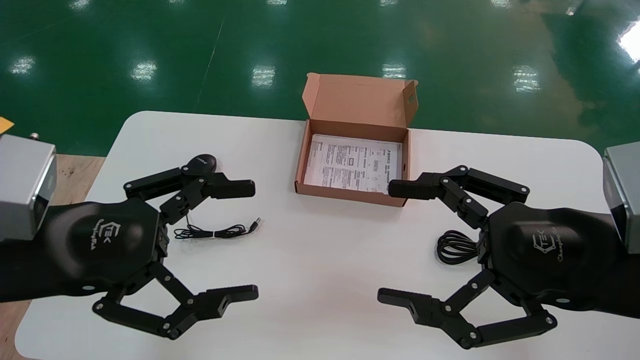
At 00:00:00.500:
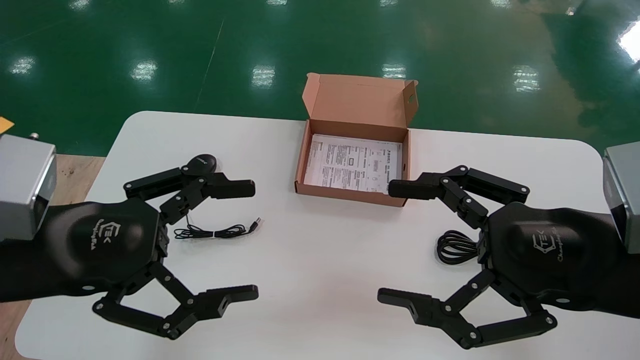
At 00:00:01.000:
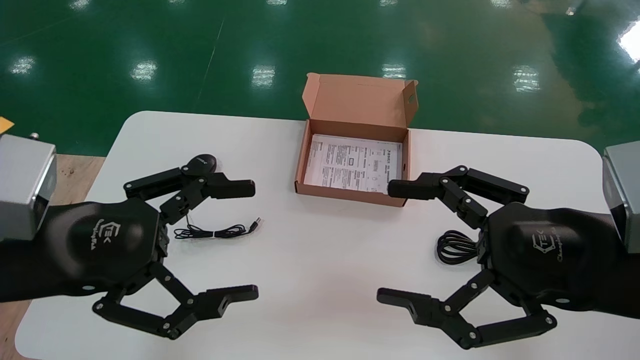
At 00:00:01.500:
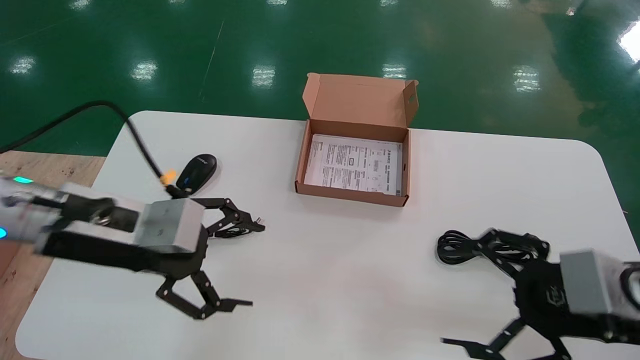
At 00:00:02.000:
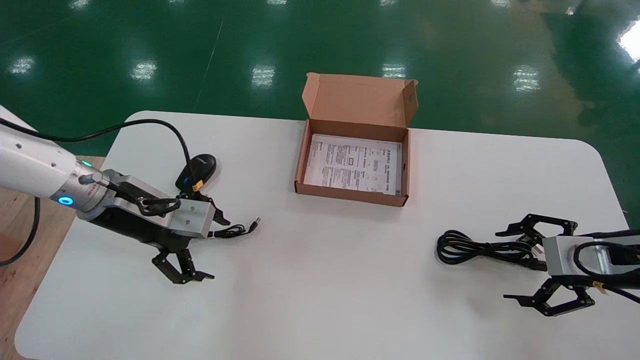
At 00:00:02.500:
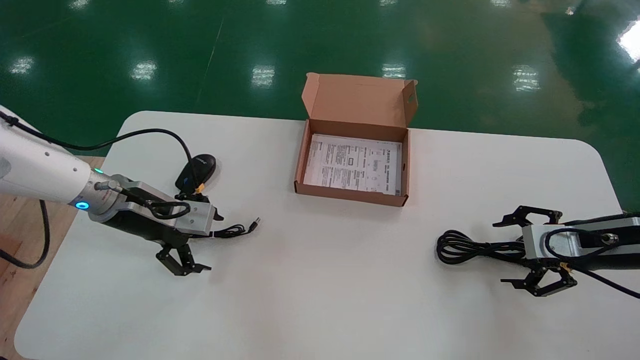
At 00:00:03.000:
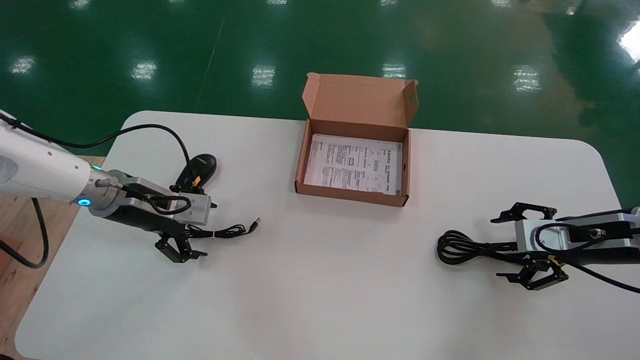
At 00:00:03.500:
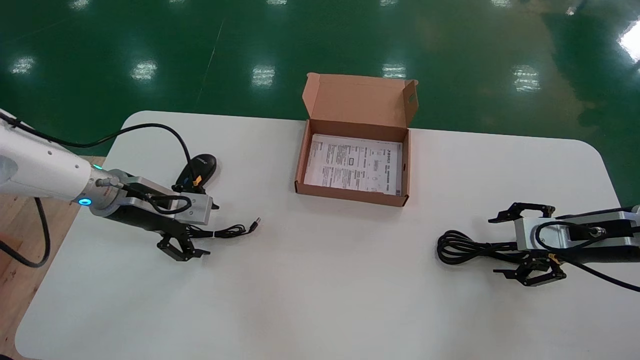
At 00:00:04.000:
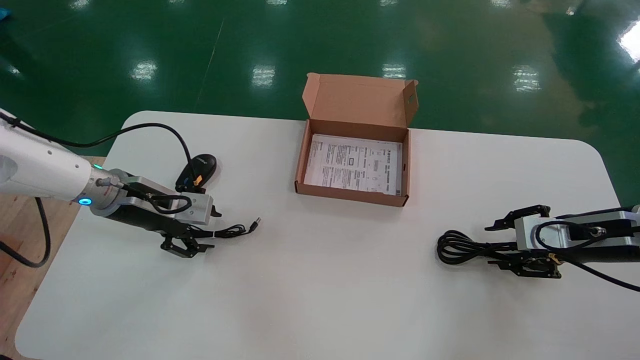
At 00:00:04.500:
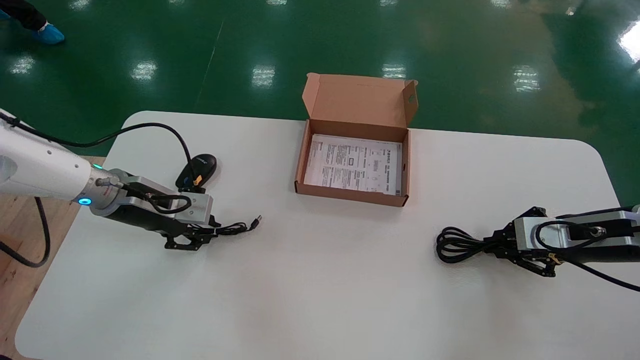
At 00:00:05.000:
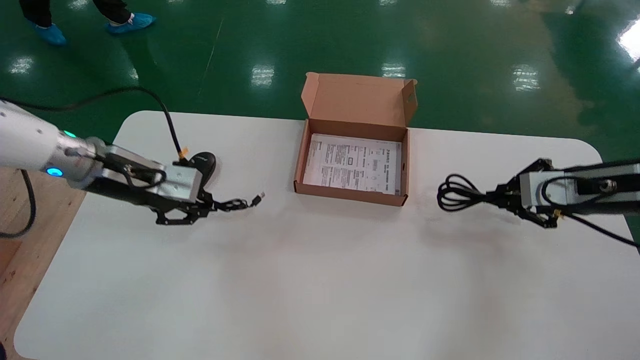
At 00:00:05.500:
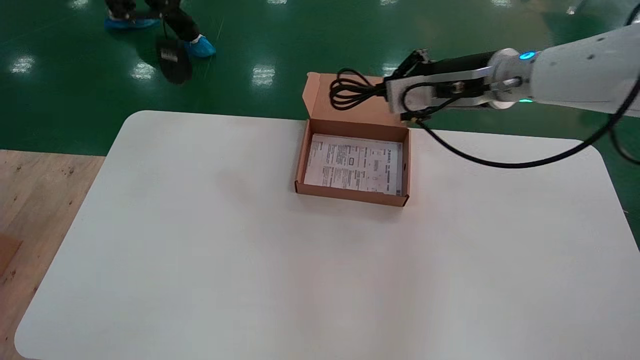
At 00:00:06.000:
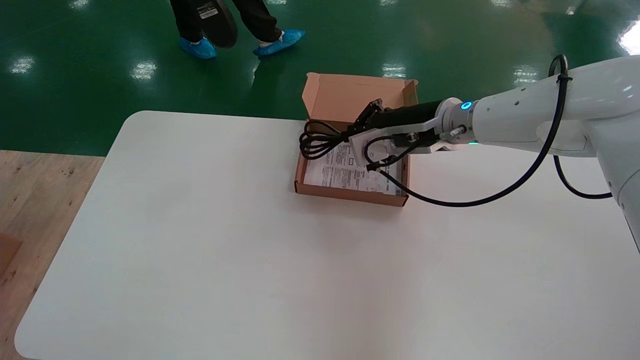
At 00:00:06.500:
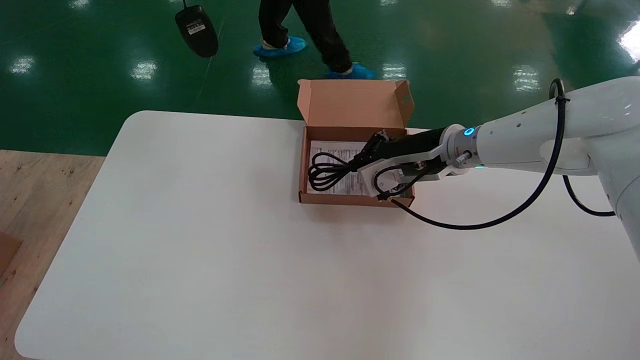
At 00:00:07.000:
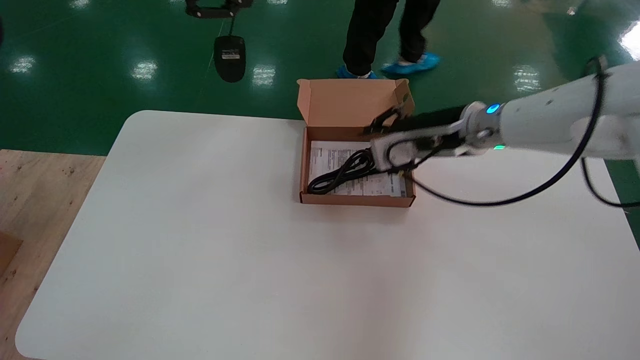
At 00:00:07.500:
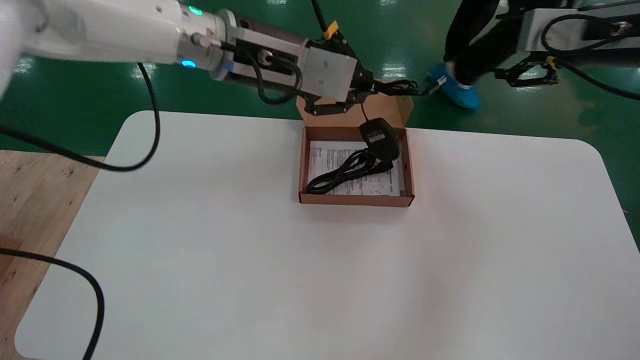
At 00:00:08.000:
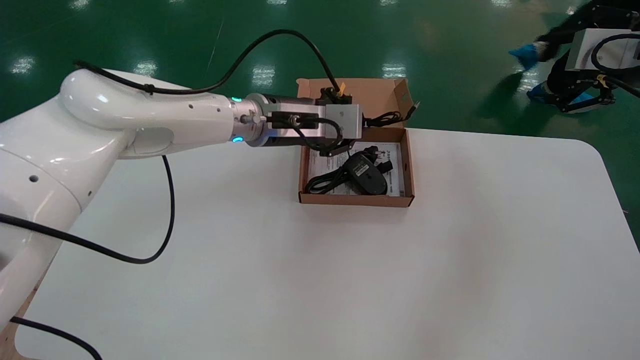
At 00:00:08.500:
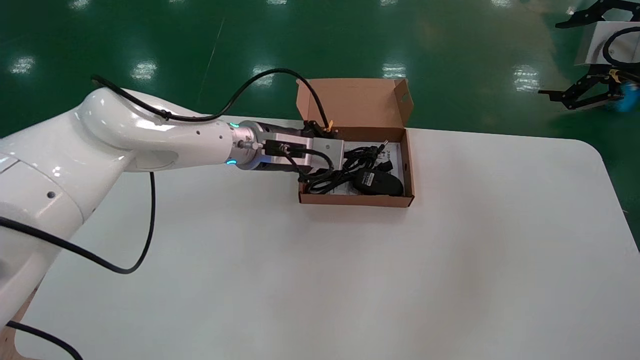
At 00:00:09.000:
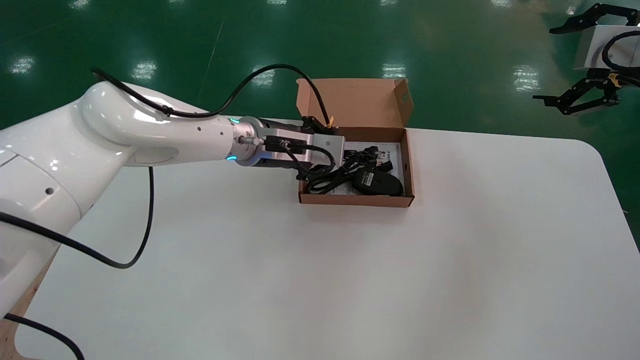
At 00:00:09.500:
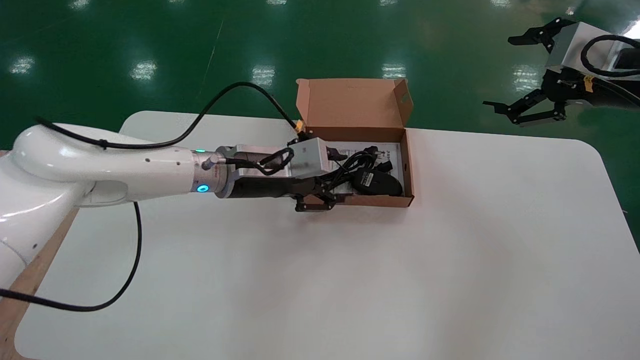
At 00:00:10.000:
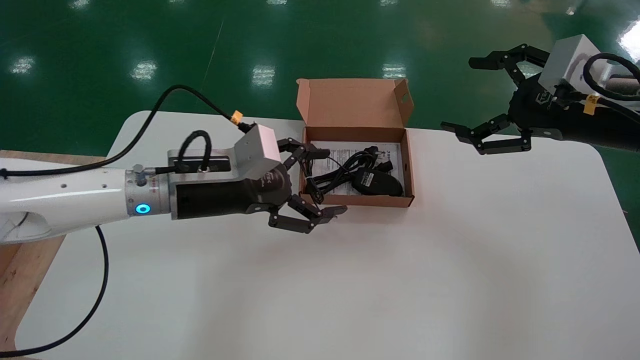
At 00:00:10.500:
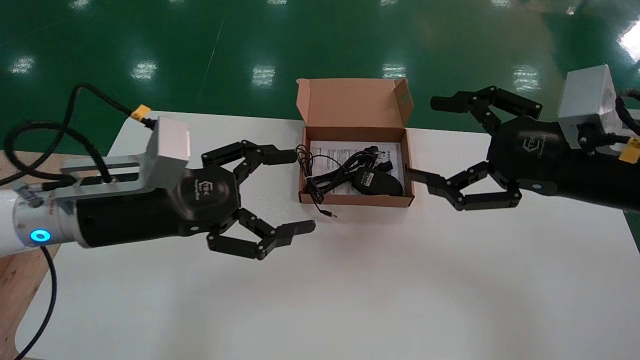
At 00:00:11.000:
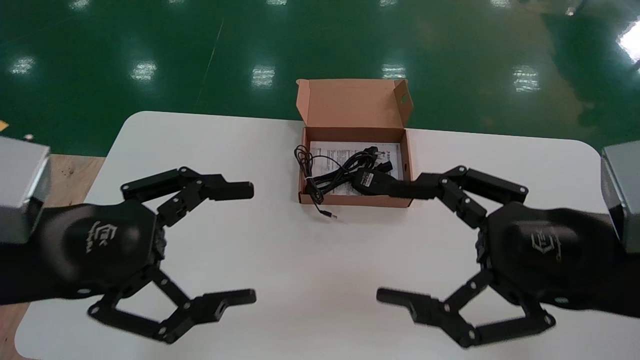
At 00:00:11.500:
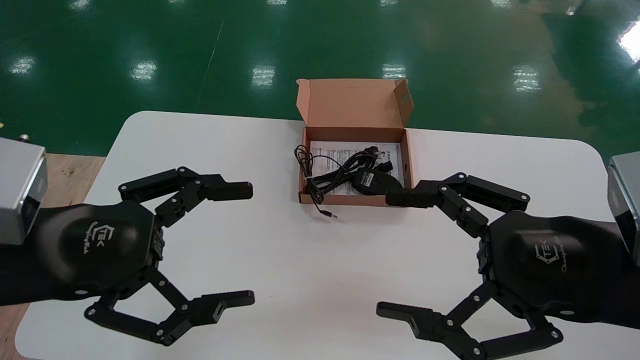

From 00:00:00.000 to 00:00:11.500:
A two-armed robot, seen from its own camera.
Step, from 00:00:01.500 to 00:00:05.000: Simultaneously pick up the mouse and power cord from the accessory packaging area.
Step, from 00:00:05.500 to 00:00:09.500: Place the mouse and power cord into the box.
From 00:00:00.000 to 00:00:02.000: The left gripper moves forward, some 15 cm. Meanwhile the right gripper heads to the right, forward and downward, covering some 20 cm.
From 00:00:02.000 to 00:00:04.000: The two grippers go approximately 5 cm forward. The left gripper closes its fingers. Meanwhile the right gripper closes.
From 00:00:04.000 to 00:00:06.000: The left gripper is displaced upward by approximately 35 cm, and closes. The right gripper travels to the left and upward by roughly 25 cm, and closes.
From 00:00:06.000 to 00:00:07.500: The right gripper shifts about 20 cm to the right and upward, and opens its fingers; the left gripper shifts about 20 cm to the right, downward and forward.
From 00:00:07.500 to 00:00:09.500: The right gripper changes place by about 5 cm, and opens its fingers. The left gripper is displaced downward by approximately 15 cm, and opens.
From 00:00:09.500 to 00:00:11.500: The right gripper is displaced backward, to the left and downward by roughly 25 cm, while the left gripper travels backward and to the left by approximately 25 cm, and opens its fingers.

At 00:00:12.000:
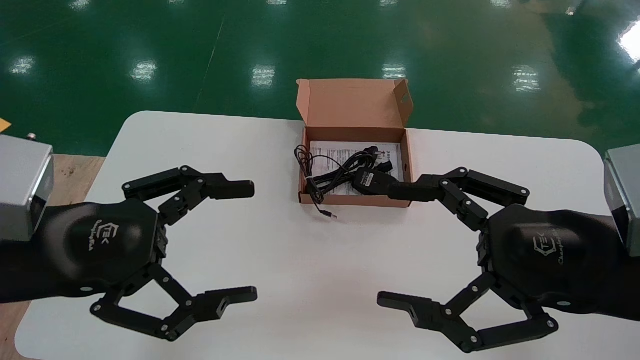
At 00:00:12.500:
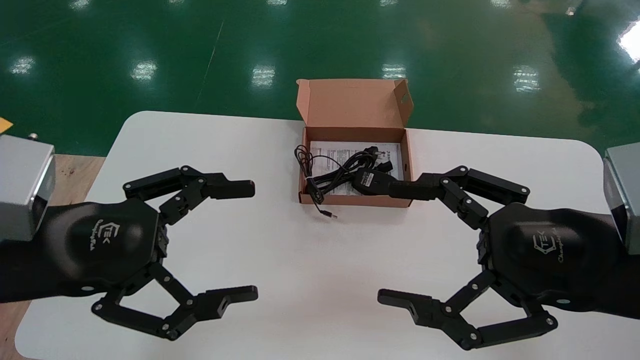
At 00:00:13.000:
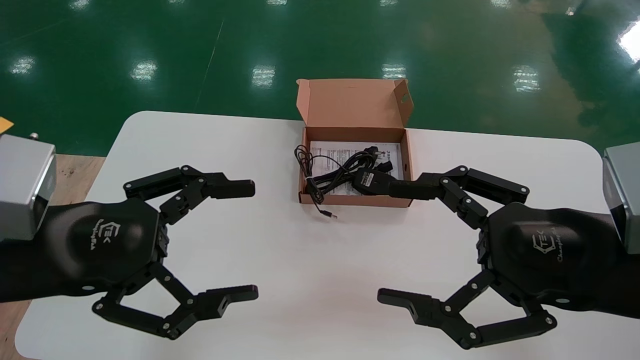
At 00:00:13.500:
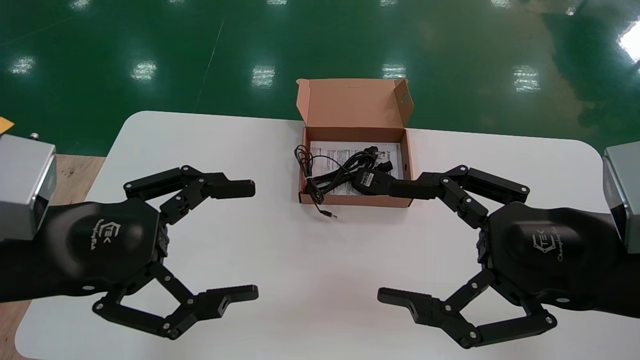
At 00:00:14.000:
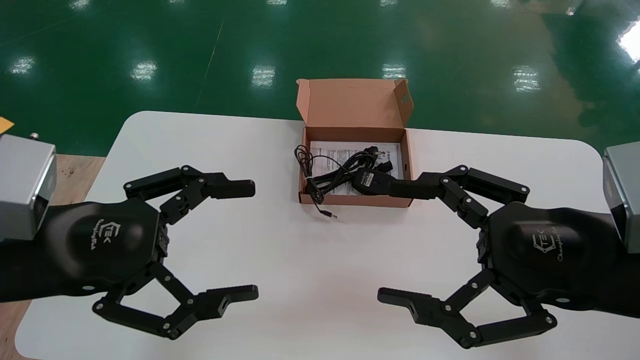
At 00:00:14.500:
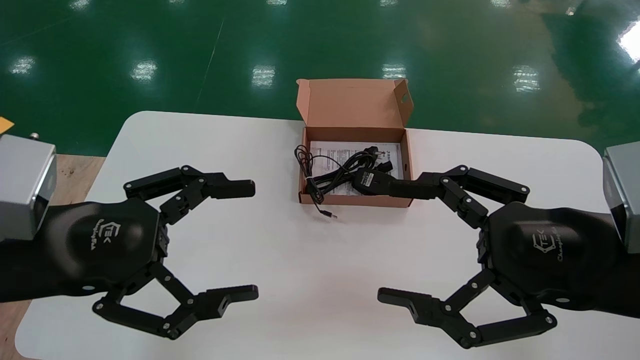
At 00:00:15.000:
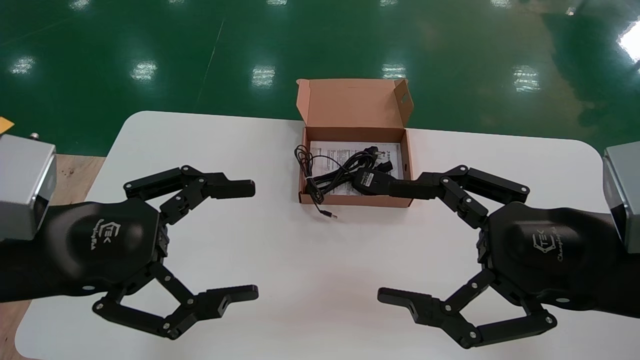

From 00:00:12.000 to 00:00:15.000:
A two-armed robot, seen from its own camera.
From 00:00:12.000 to 00:00:15.000: Neither gripper changes place.
